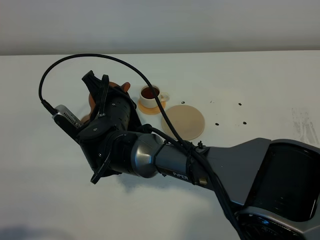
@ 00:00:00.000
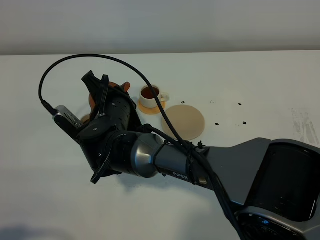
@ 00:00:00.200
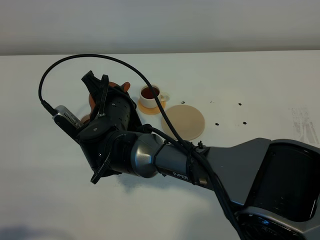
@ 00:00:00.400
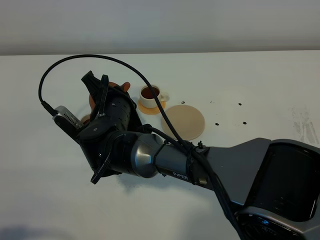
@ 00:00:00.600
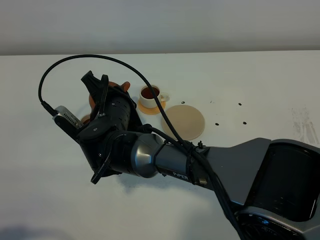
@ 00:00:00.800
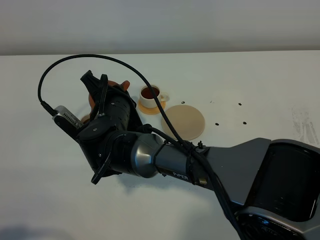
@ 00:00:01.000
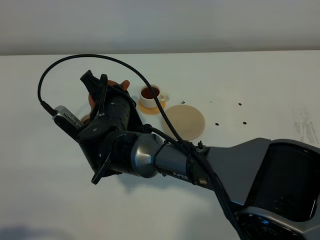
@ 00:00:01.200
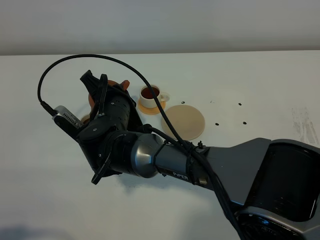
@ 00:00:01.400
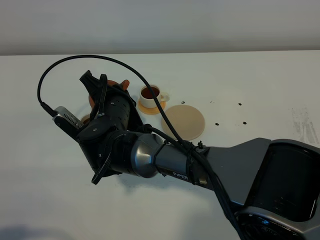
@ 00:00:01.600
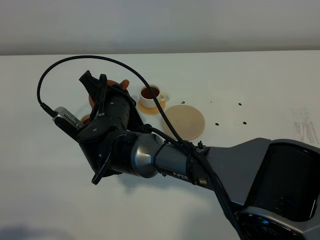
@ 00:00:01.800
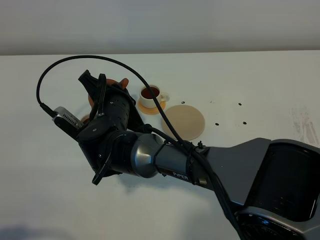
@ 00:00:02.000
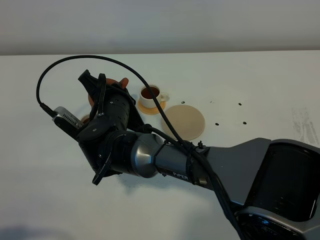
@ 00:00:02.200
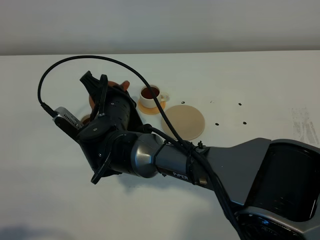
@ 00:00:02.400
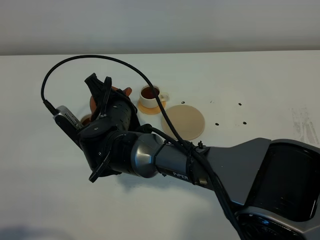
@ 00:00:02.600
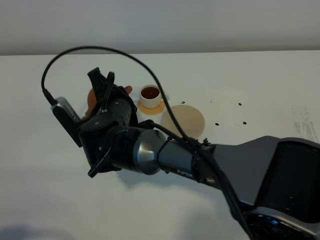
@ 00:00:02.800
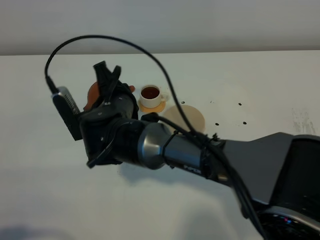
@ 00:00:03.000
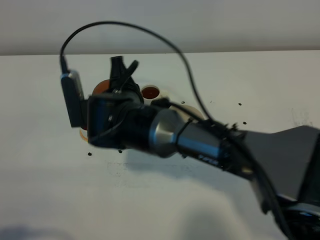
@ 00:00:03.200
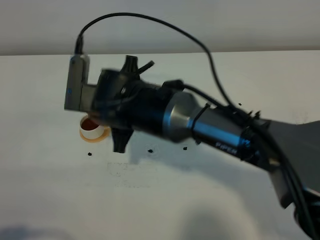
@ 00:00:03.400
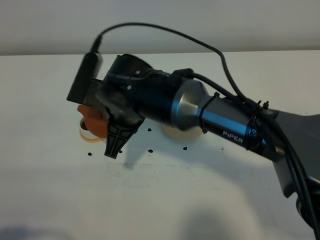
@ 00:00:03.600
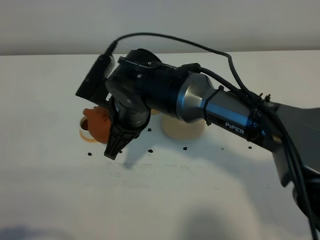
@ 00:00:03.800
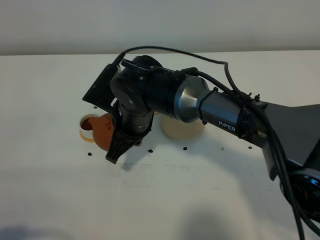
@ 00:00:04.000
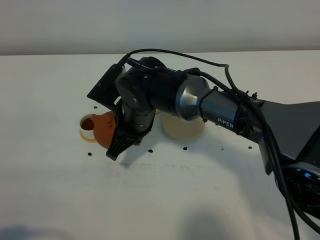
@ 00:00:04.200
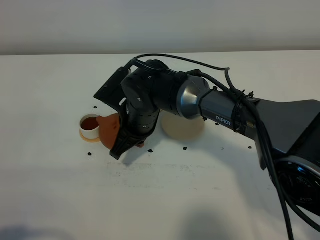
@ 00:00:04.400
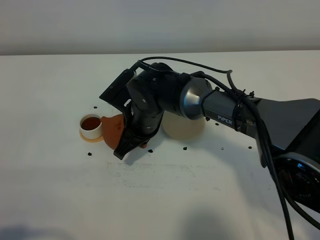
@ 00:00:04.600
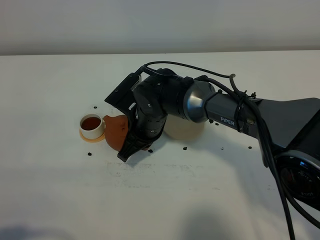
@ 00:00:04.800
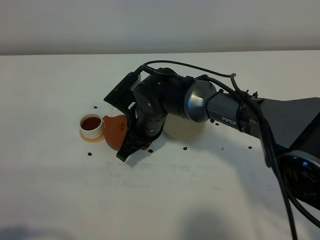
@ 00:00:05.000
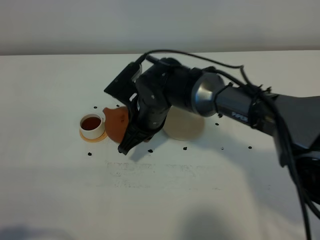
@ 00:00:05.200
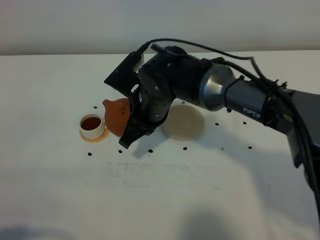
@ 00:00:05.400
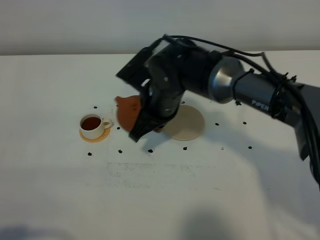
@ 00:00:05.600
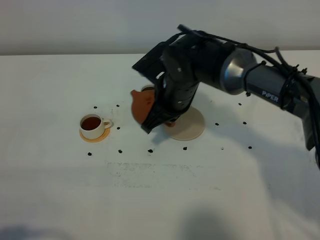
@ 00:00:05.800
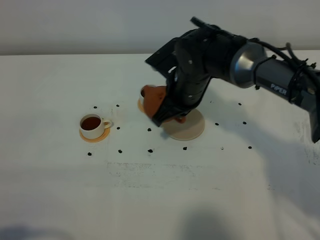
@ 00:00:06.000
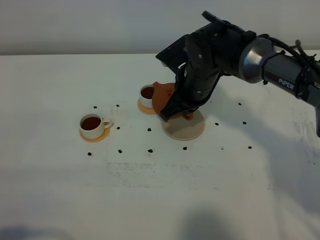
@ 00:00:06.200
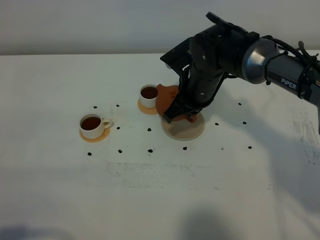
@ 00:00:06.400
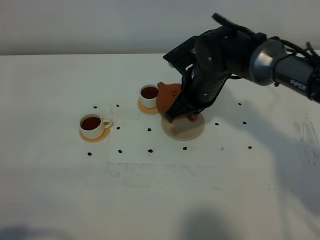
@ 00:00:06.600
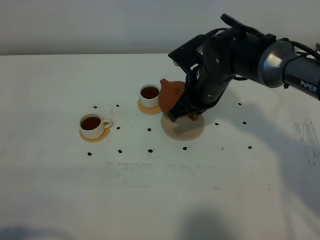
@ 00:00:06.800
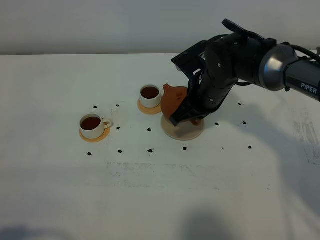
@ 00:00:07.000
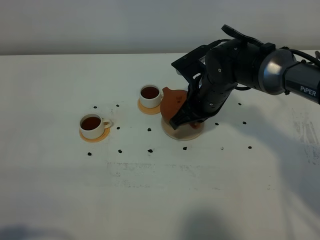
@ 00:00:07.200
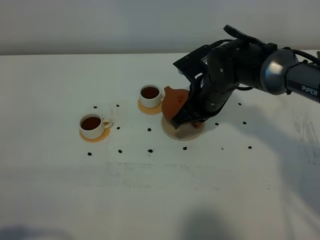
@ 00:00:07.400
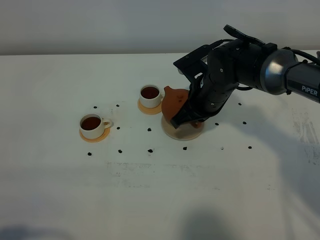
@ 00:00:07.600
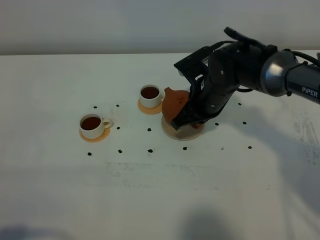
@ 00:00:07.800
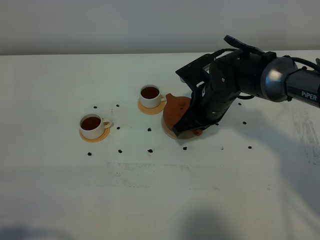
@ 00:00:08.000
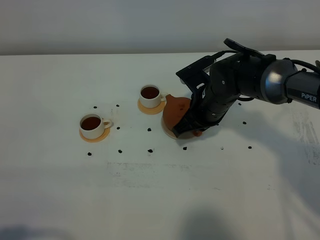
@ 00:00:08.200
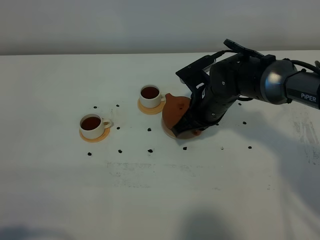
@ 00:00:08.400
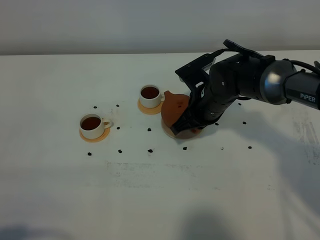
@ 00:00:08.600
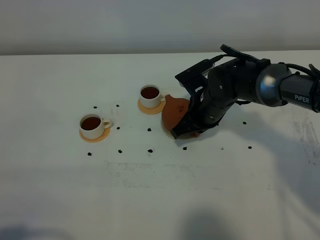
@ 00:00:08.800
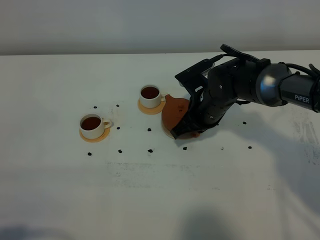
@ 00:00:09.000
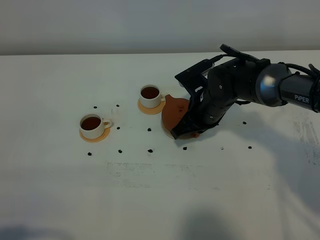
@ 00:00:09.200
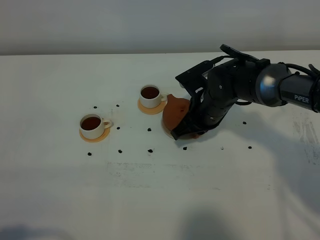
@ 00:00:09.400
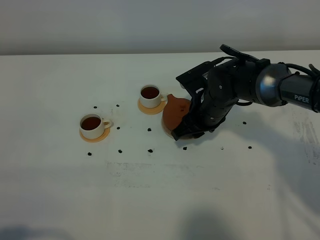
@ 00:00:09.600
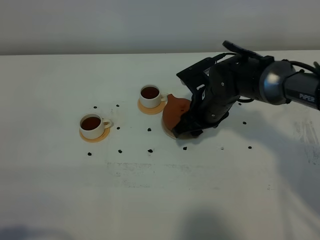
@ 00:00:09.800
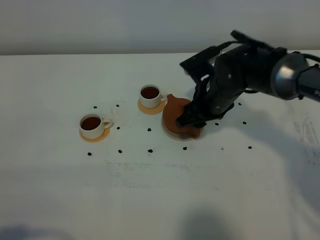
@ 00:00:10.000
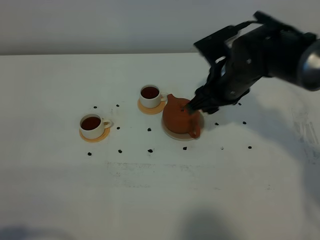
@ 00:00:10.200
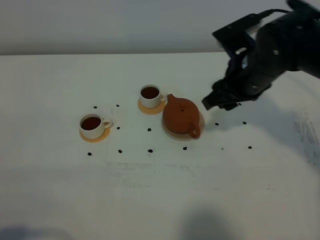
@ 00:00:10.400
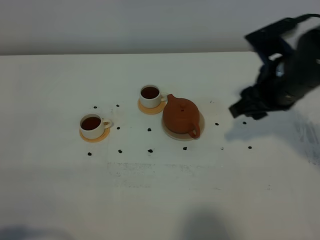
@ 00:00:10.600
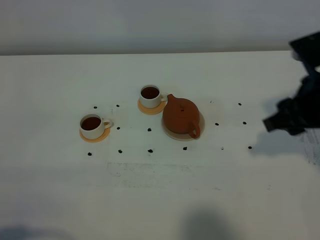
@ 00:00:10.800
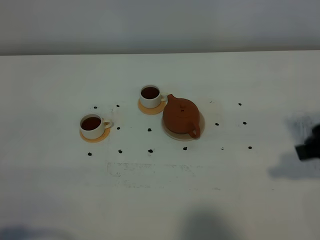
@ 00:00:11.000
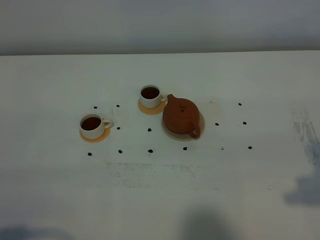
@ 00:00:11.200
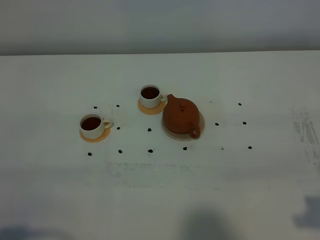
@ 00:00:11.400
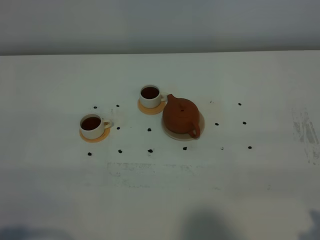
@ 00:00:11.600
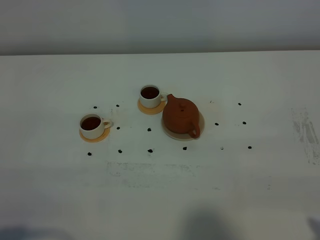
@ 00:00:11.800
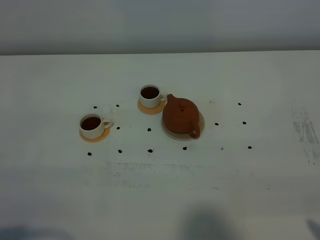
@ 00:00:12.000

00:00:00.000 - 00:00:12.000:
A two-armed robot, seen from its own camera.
Task of the whole recording: grasp the brown teapot and pour the tea into the two white teacups one by one, put the brown teapot back in its original place.
Step, 00:00:00.000 - 00:00:03.800: Pour tea into the teacup with the right gripper.
00:00:00.000 - 00:00:01.600: Both grippers stay put.
00:00:03.000 - 00:00:04.400: The right gripper ends up roughly 5 cm from where it was.
00:00:04.400 - 00:00:06.000: The right gripper shifts roughly 10 cm to the right.
00:00:06.000 - 00:00:07.600: The grippers make only small movements.
00:00:07.600 - 00:00:09.000: The grippers move only a little.
00:00:09.000 - 00:00:10.400: The right gripper moves upward and to the right, roughly 15 cm, and opens up.
00:00:10.400 - 00:00:12.000: The right gripper travels backward and to the right by roughly 30 cm.

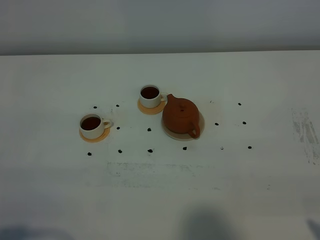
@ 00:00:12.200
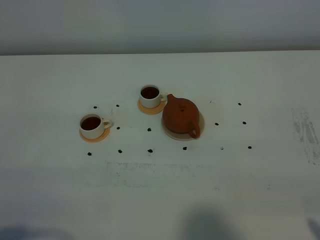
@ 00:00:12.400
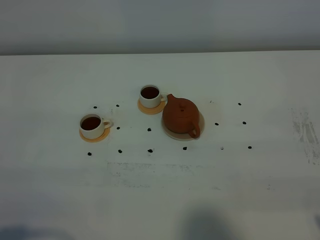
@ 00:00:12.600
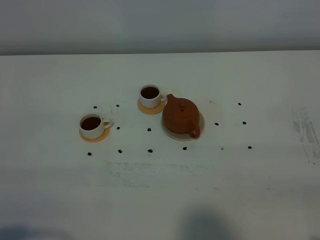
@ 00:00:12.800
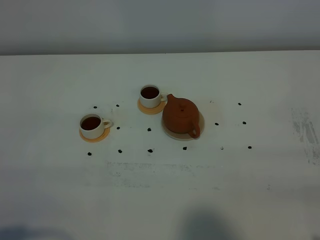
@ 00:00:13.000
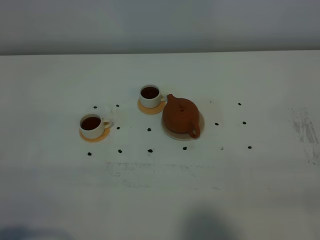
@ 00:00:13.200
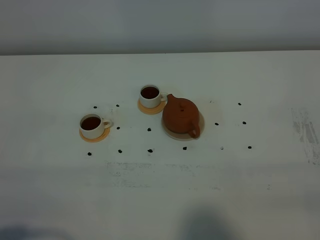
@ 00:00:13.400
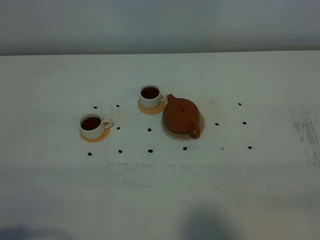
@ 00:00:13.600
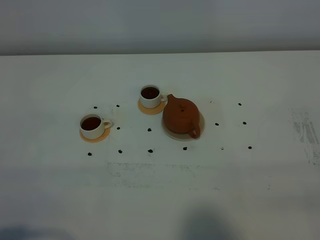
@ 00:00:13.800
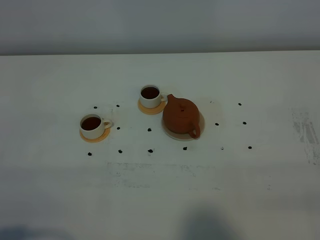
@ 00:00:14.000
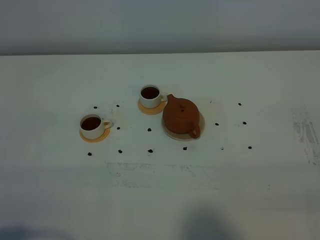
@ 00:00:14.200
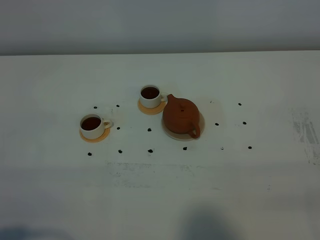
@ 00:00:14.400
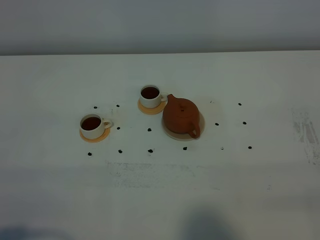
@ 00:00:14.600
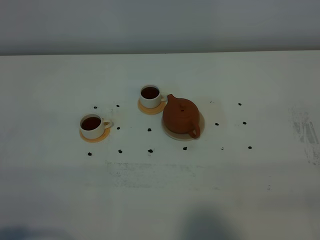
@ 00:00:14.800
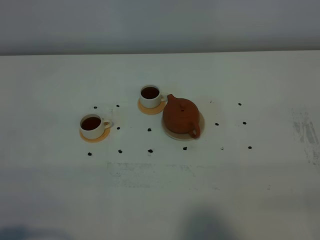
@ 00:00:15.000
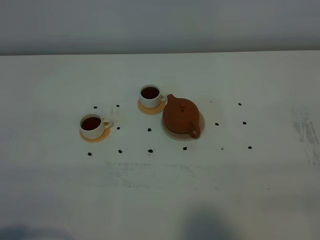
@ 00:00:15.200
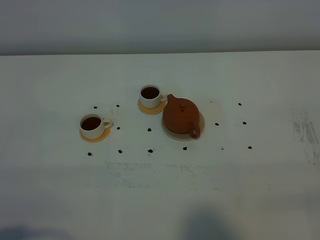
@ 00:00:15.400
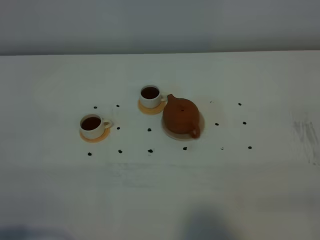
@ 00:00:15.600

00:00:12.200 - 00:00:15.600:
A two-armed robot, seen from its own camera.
Task of the whole recording: grasp the brown teapot and pour the tea into the two white teacups one by one, put the brown teapot back in its original place.
00:00:13.800 - 00:00:15.600: Neither gripper changes place.
